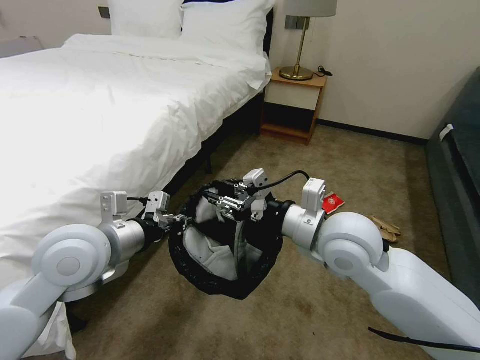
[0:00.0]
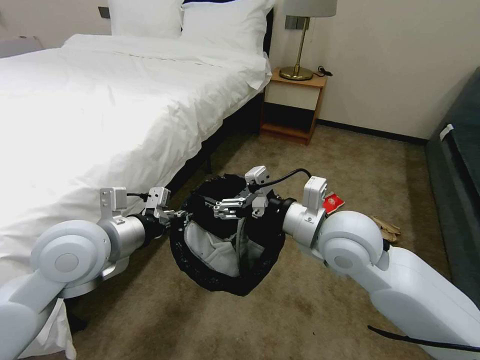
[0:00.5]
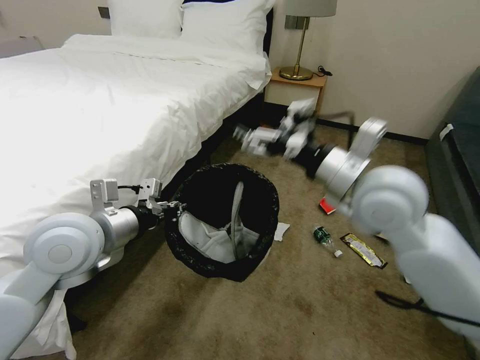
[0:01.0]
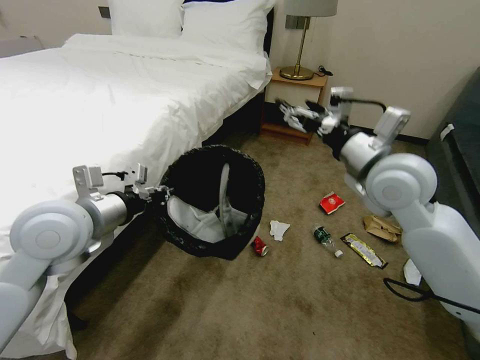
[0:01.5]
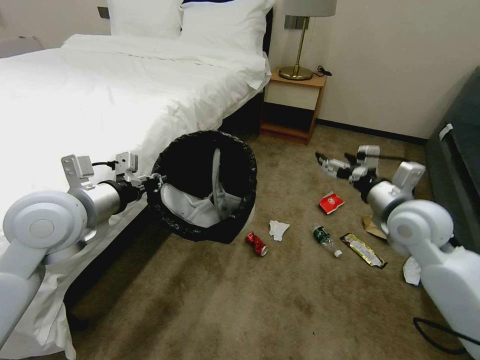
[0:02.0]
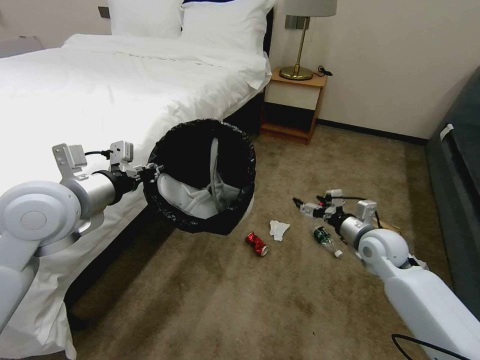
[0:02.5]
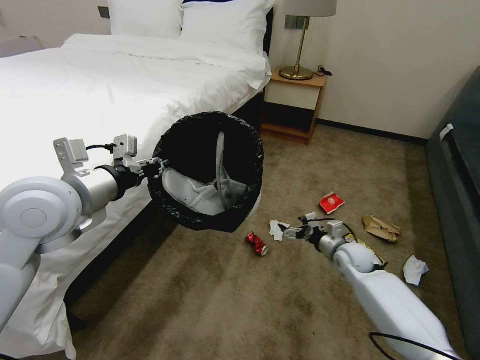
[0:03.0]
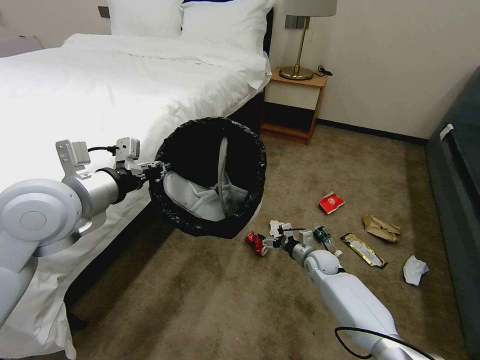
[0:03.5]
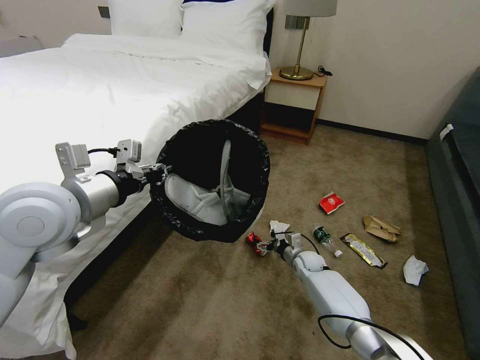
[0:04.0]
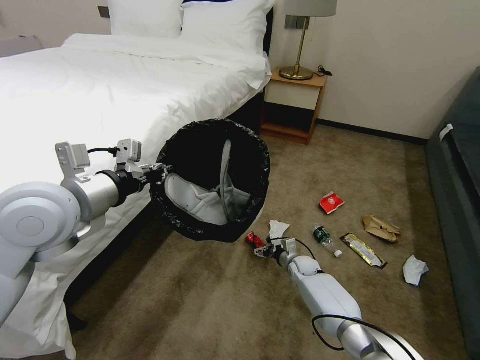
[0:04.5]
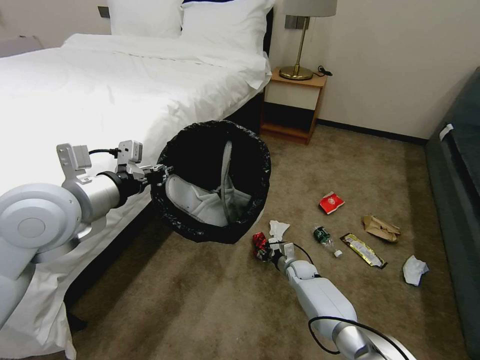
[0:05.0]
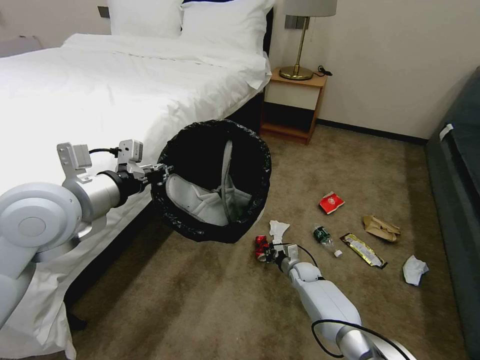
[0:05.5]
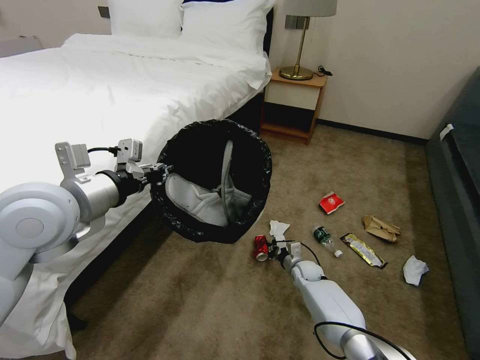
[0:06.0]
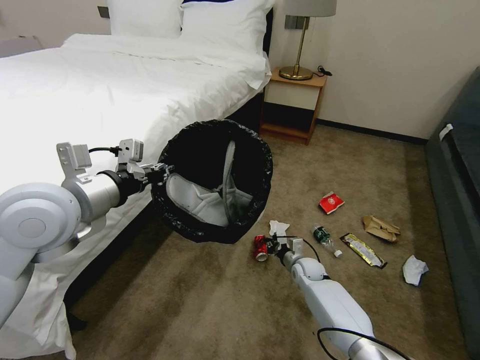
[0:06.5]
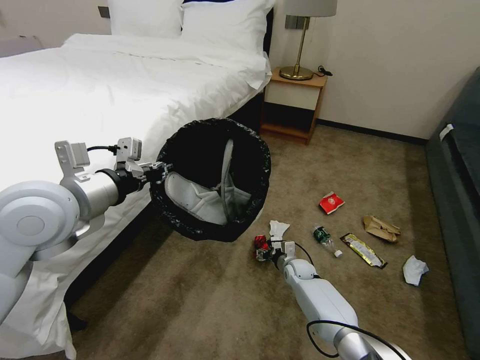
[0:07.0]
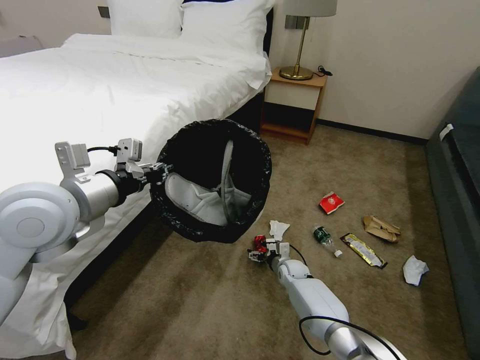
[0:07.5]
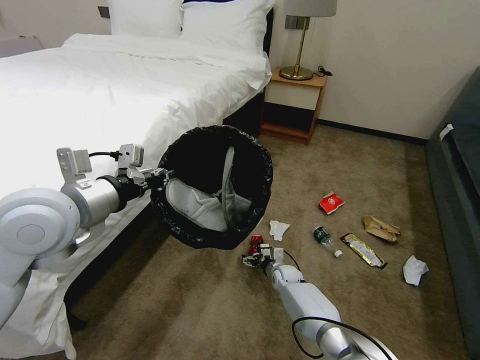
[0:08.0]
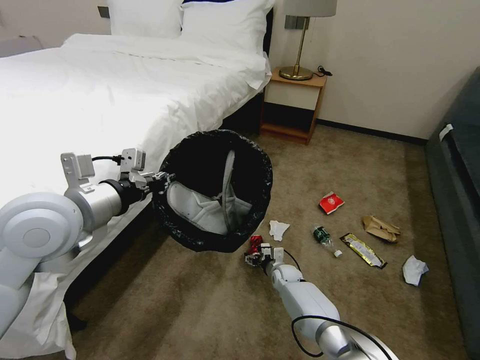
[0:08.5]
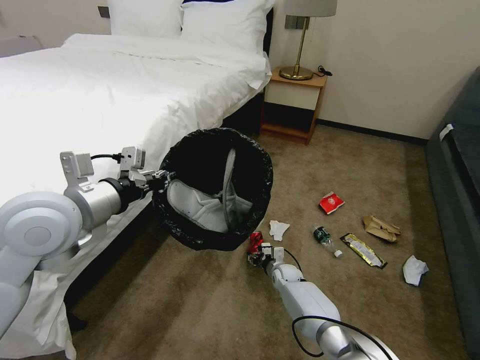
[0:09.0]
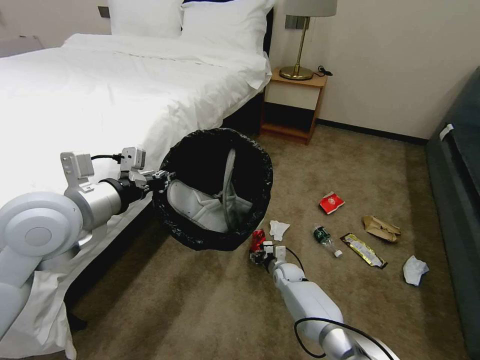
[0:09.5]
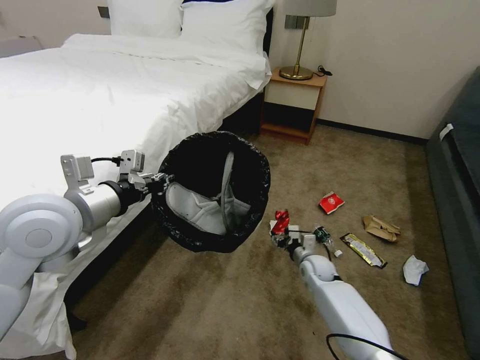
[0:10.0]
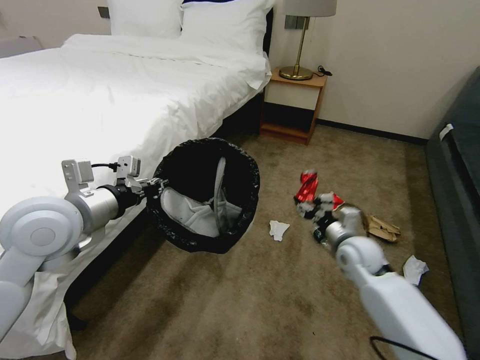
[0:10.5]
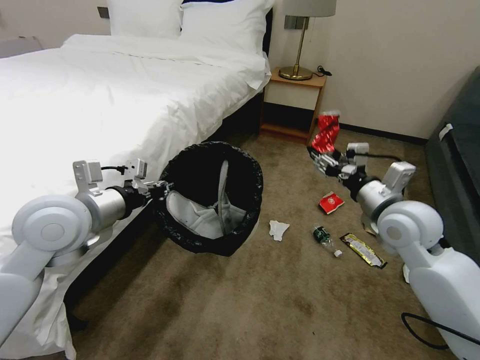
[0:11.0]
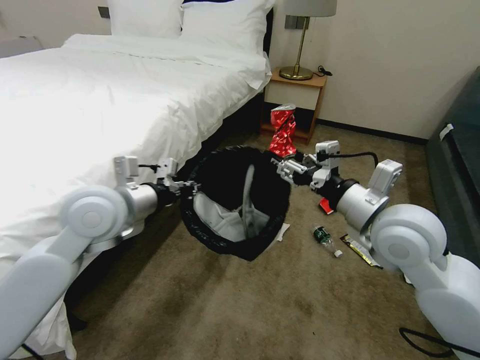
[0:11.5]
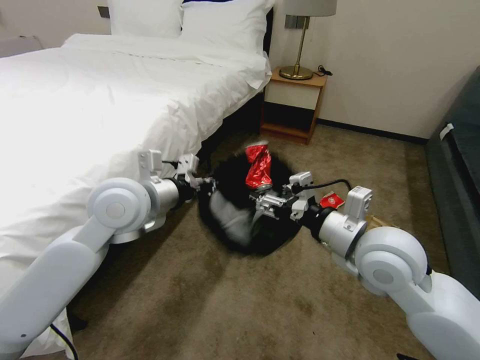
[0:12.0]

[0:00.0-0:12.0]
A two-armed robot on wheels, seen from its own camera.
Task of the whole recording: Pick up the trash bin, then pick up the garbage on the floor and place it into the trash bin.
0:00.0 to 0:02.0: The left gripper moves approximately 5 cm, while the right gripper heads to the right, covering some 15 cm, and opens.
0:02.0 to 0:04.0: The right gripper is displaced downward by roughly 35 cm.
0:04.0 to 0:06.0: The right gripper closes its fingers.
0:06.0 to 0:08.0: The right gripper moves to the left, roughly 5 cm, and opens its fingers.
0:08.0 to 0:10.0: The right gripper travels upward and to the right by about 10 cm, and closes its fingers.
0:10.0 to 0:12.0: The left gripper moves to the right and forward, approximately 10 cm; the right gripper heads upward and backward, covering approximately 35 cm.

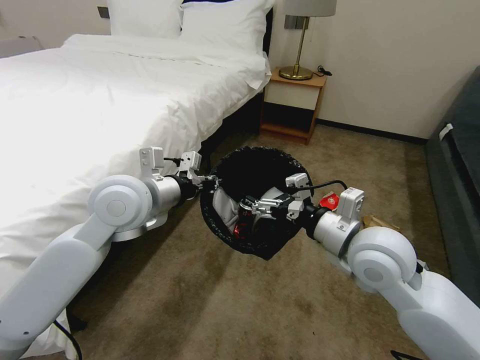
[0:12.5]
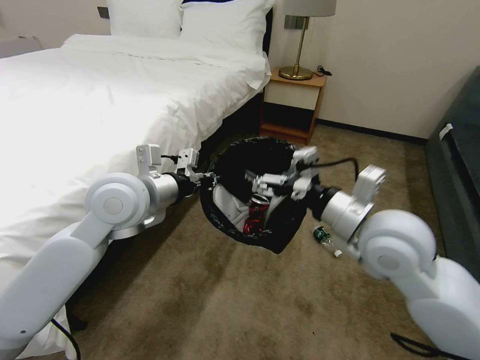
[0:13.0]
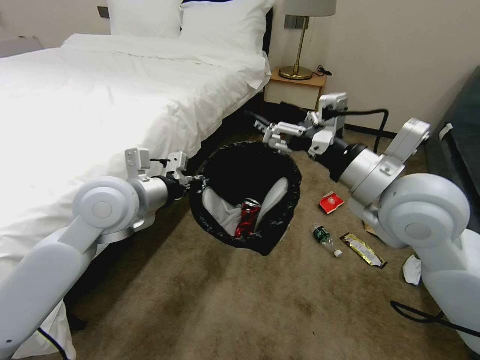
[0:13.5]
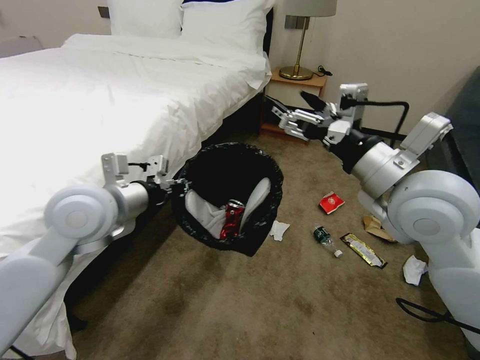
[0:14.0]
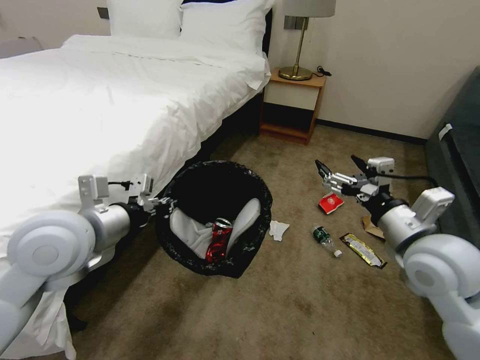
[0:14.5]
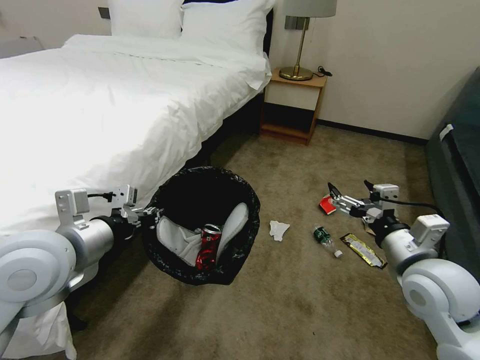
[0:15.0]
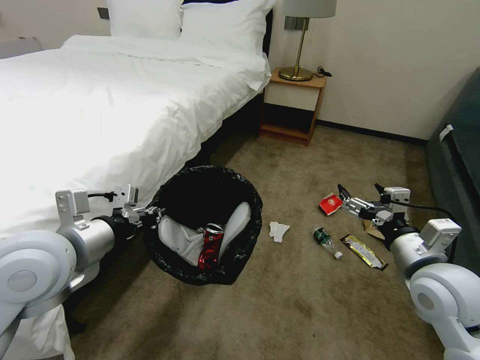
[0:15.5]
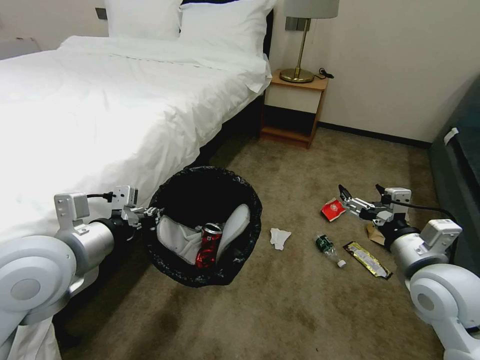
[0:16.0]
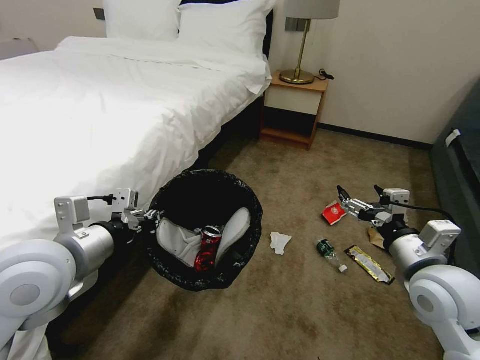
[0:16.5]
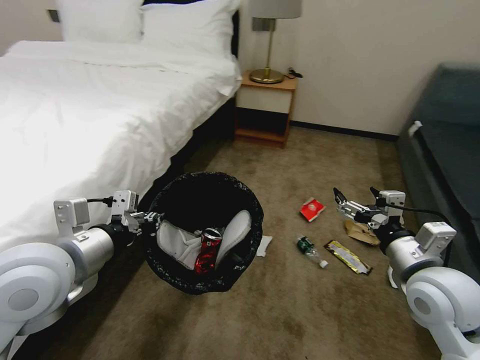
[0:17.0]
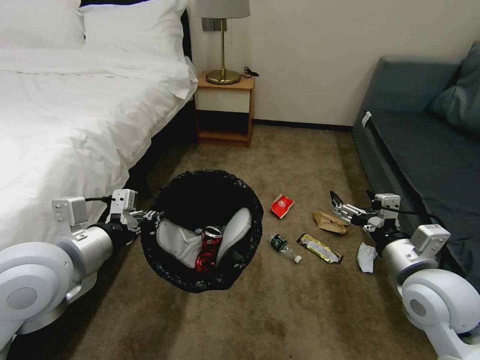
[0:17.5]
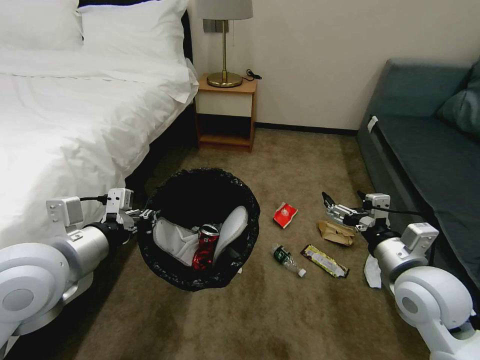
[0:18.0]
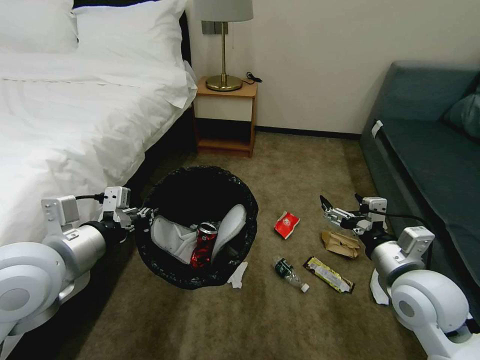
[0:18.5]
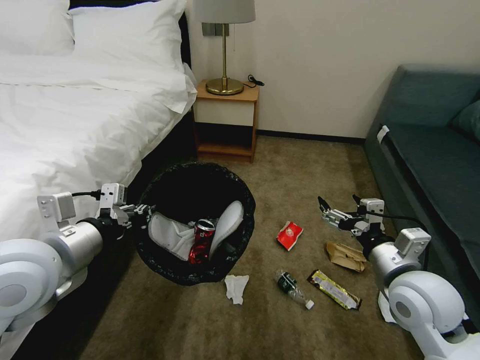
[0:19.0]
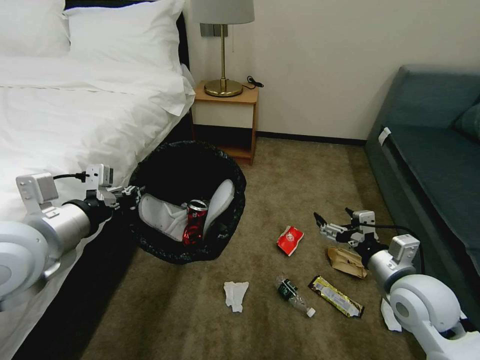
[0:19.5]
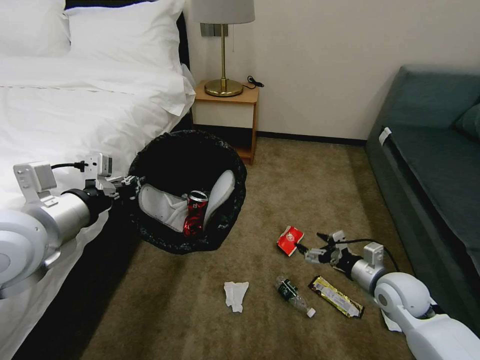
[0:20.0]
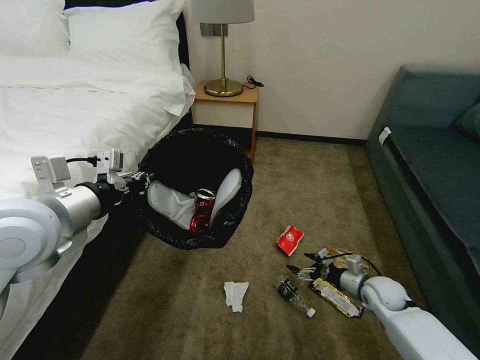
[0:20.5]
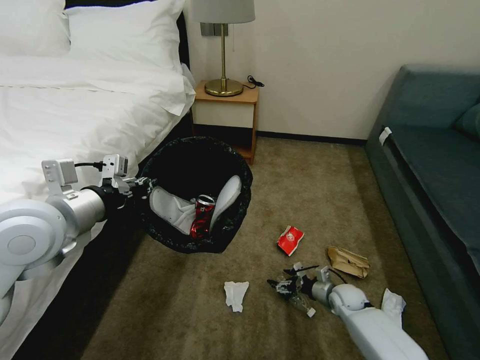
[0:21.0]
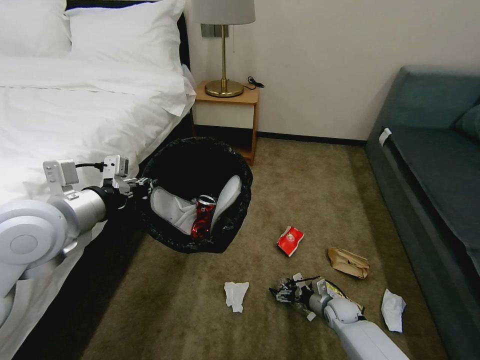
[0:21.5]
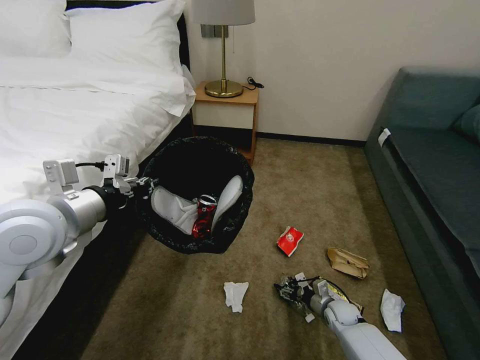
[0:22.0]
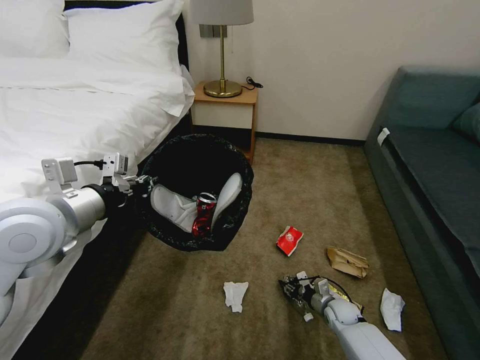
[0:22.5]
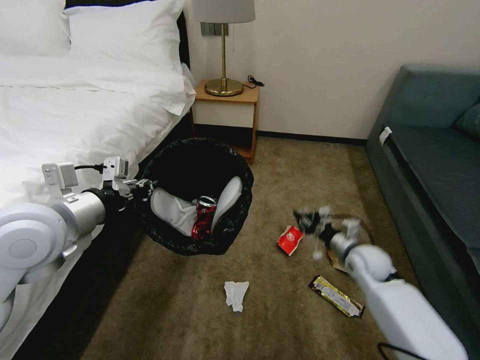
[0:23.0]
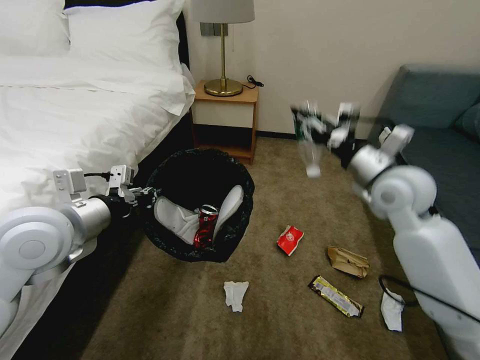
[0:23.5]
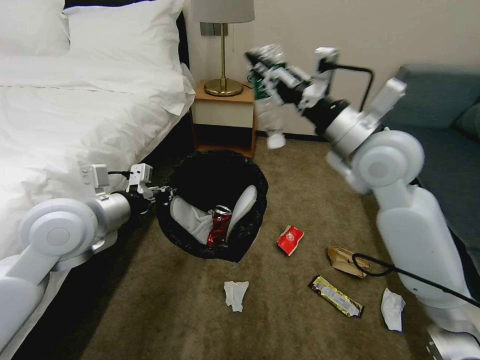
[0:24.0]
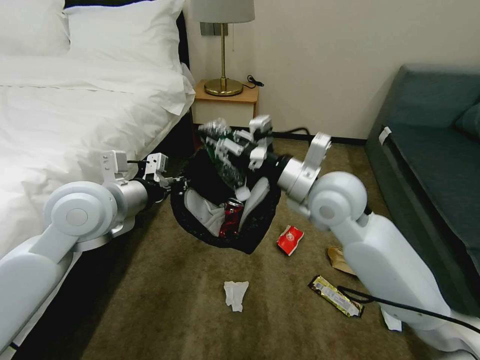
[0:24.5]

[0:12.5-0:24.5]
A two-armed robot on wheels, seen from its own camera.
Task of the whole recording: Pick up the trash bin, then pick up the garbage on the floor and place it into the trash bin.
0:12.5 to 0:14.5: The right gripper heads to the right, covering about 10 cm, and travels upward and back again, about 10 cm each way; the left gripper moves backward and to the left, some 10 cm.
0:14.5 to 0:16.5: The right gripper shifts roughly 5 cm downward. Meanwhile the left gripper ends up approximately 5 cm from where it was.
0:18.5 to 0:20.5: The right gripper travels downward by roughly 25 cm. The left gripper moves approximately 5 cm.
0:20.5 to 0:22.5: The right gripper goes about 15 cm downward and to the left, and closes.
0:22.5 to 0:24.5: The left gripper goes about 5 cm to the right. The right gripper goes about 50 cm upward.

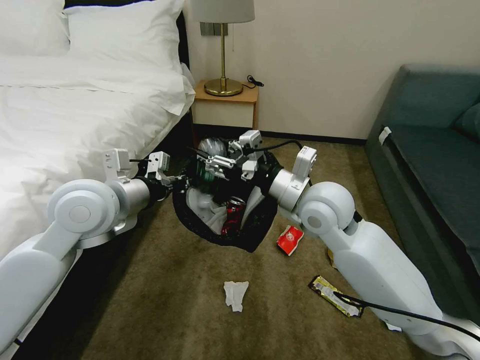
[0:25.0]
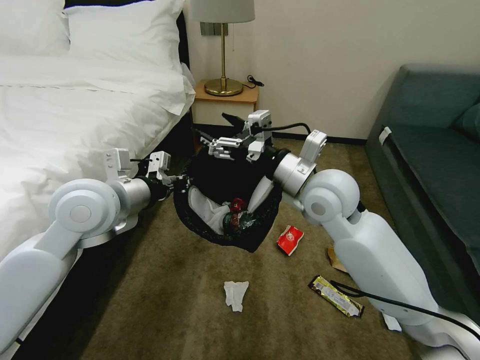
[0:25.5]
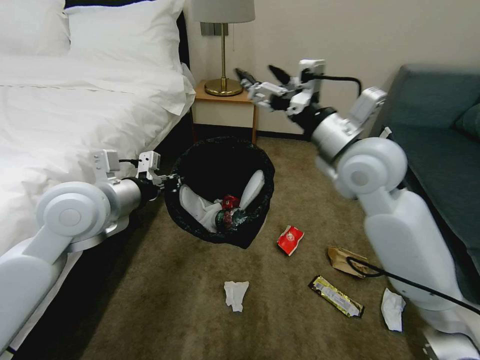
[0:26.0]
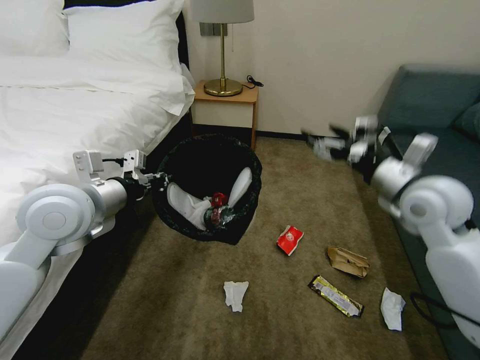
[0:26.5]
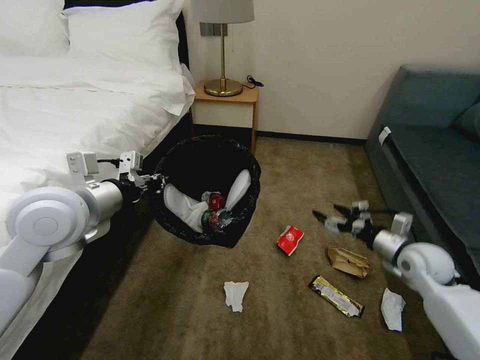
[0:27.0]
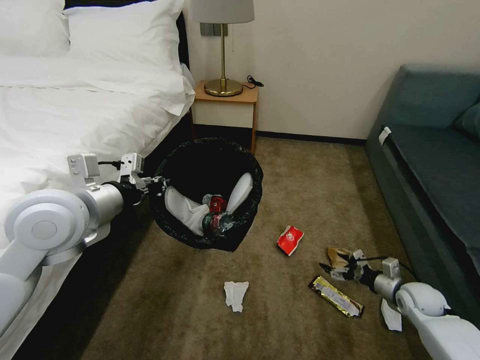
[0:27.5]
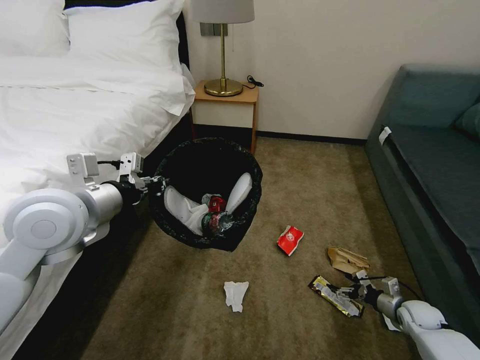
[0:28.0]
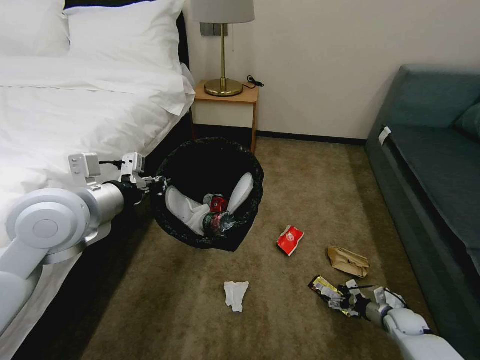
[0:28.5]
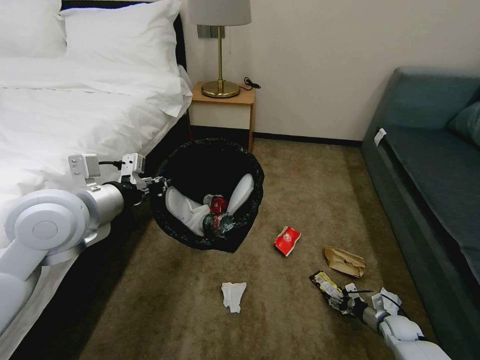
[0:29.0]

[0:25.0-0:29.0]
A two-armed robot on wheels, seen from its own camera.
Task of the whole recording: Pick up the trash bin, then pick up the garbage on the floor and place it into the trash bin.
0:25.0 to 0:27.0: The right gripper is displaced to the right and downward by some 35 cm.
0:27.0 to 0:29.0: The right gripper heads downward, covering approximately 25 cm, and closes.
